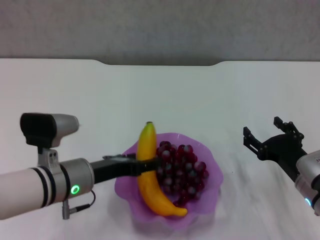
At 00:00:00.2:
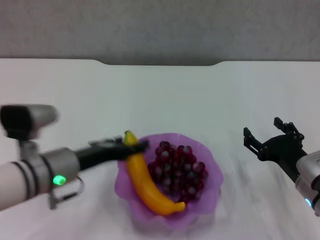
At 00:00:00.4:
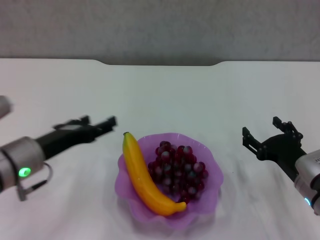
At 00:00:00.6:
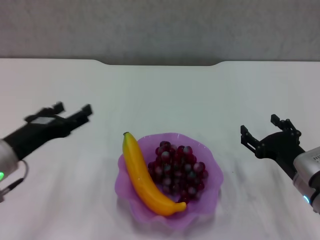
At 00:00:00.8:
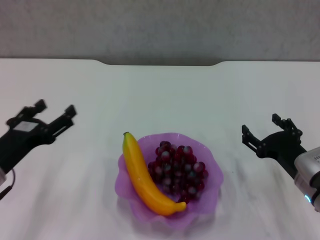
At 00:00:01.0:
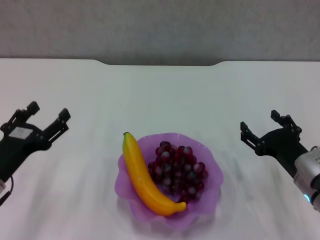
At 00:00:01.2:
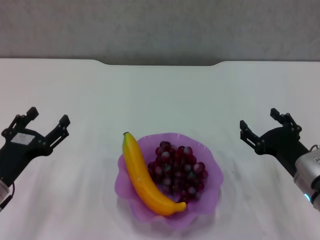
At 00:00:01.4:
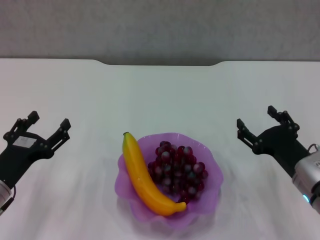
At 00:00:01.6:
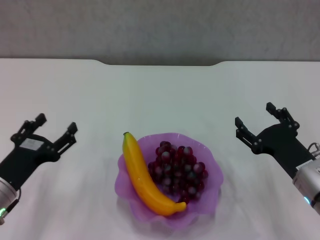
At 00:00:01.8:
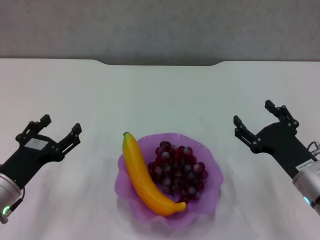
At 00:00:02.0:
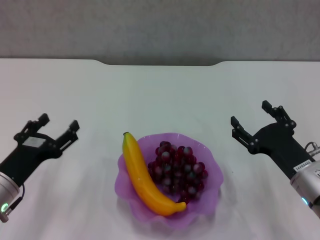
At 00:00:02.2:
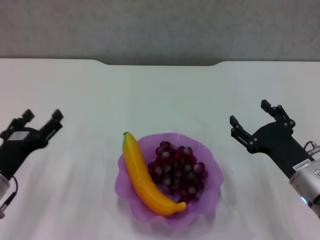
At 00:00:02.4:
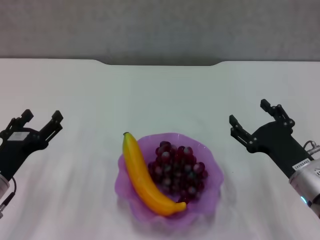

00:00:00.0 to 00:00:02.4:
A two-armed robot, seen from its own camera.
00:00:00.0 to 00:00:01.2: The left gripper moves to the left, roughly 10 cm, and opens its fingers.
00:00:01.2 to 00:00:02.4: The grippers make only small movements.

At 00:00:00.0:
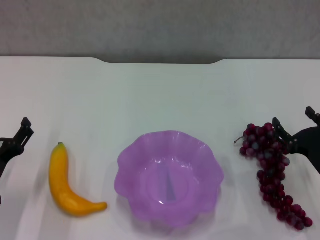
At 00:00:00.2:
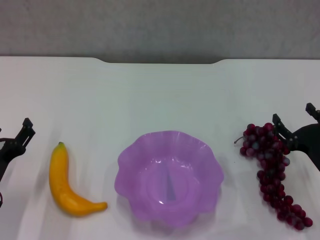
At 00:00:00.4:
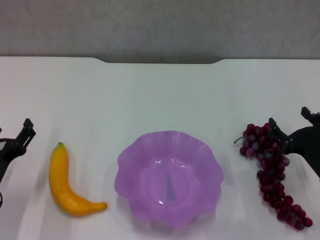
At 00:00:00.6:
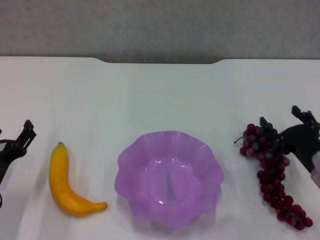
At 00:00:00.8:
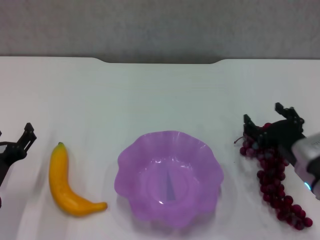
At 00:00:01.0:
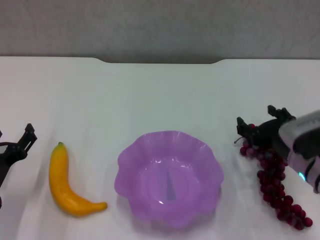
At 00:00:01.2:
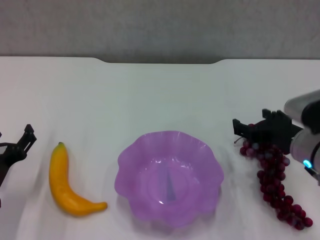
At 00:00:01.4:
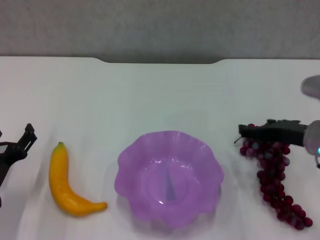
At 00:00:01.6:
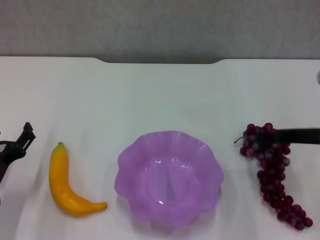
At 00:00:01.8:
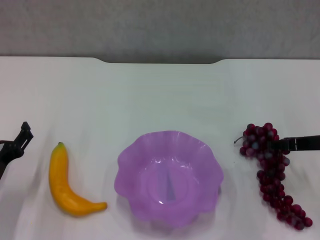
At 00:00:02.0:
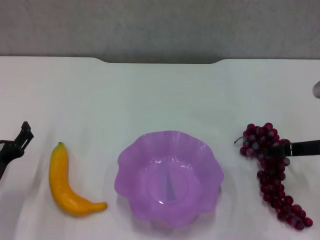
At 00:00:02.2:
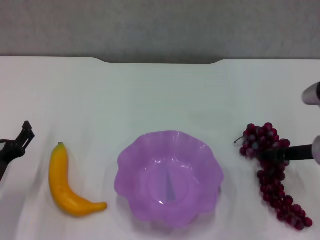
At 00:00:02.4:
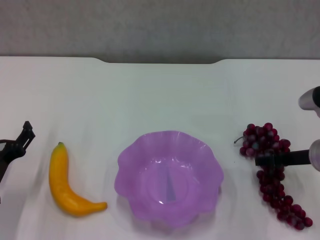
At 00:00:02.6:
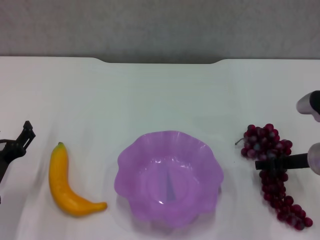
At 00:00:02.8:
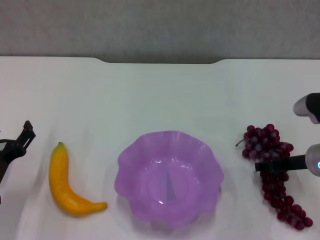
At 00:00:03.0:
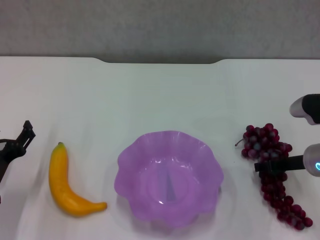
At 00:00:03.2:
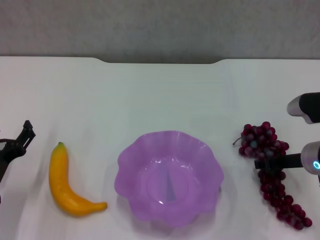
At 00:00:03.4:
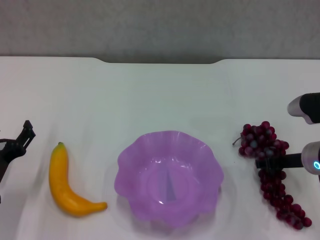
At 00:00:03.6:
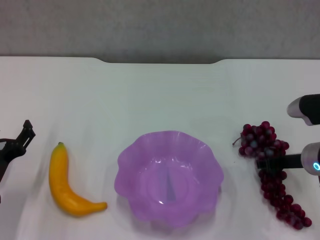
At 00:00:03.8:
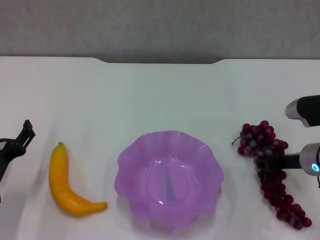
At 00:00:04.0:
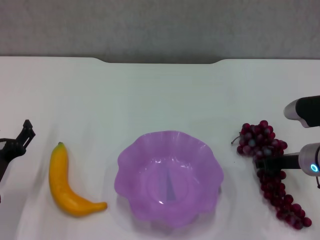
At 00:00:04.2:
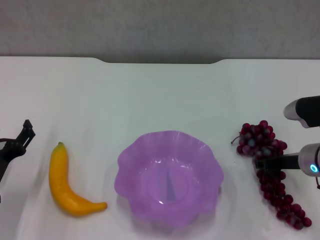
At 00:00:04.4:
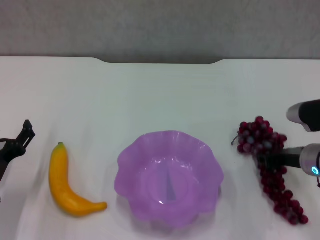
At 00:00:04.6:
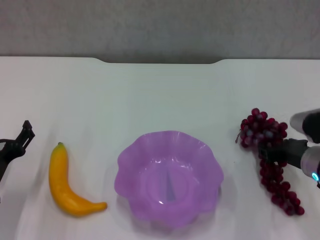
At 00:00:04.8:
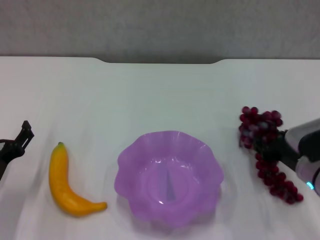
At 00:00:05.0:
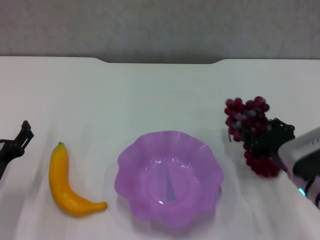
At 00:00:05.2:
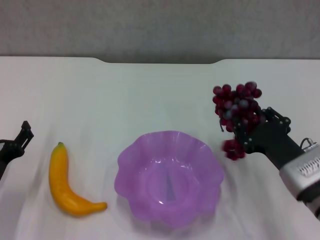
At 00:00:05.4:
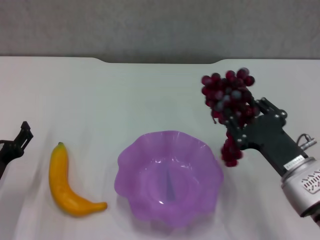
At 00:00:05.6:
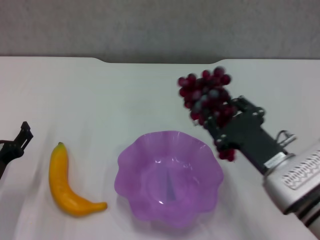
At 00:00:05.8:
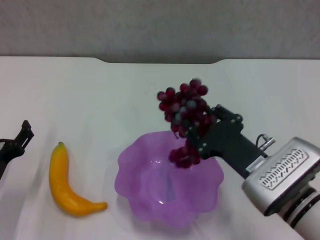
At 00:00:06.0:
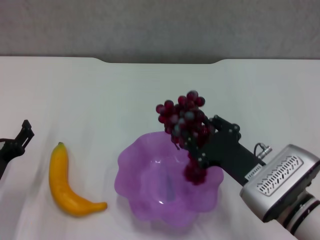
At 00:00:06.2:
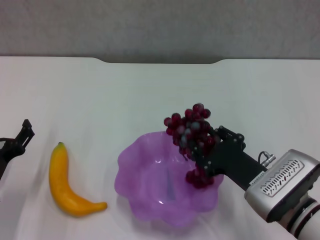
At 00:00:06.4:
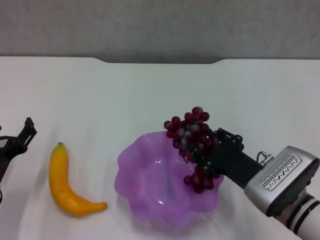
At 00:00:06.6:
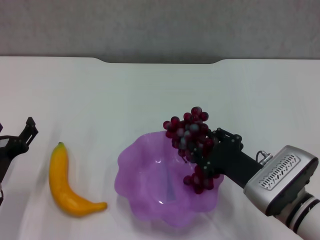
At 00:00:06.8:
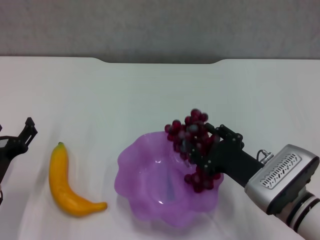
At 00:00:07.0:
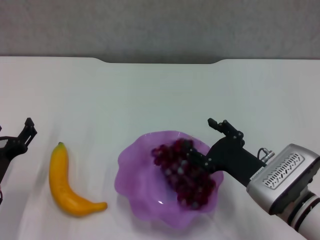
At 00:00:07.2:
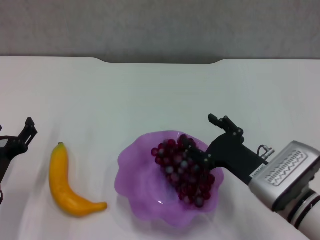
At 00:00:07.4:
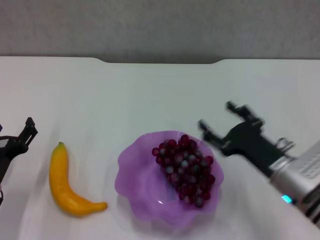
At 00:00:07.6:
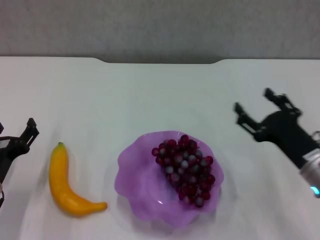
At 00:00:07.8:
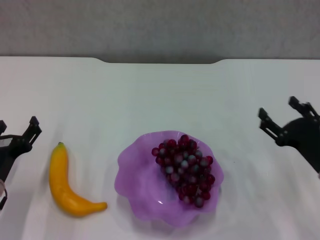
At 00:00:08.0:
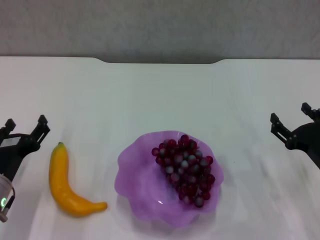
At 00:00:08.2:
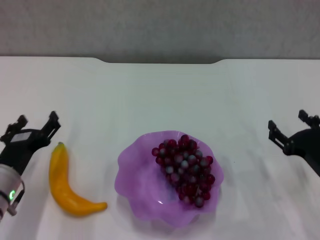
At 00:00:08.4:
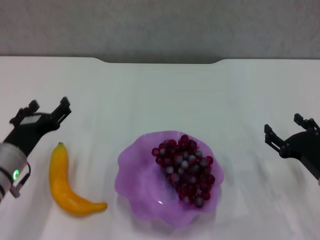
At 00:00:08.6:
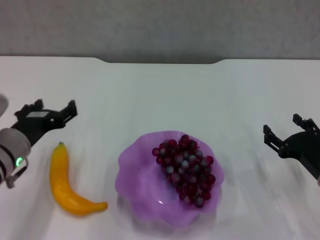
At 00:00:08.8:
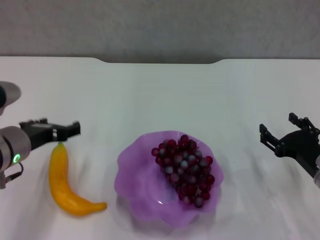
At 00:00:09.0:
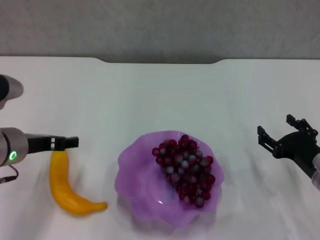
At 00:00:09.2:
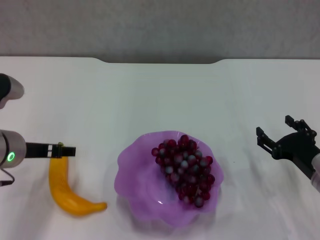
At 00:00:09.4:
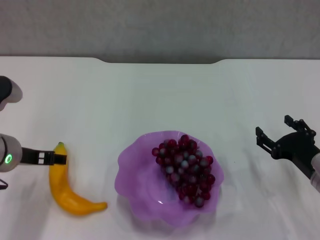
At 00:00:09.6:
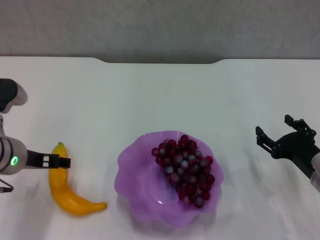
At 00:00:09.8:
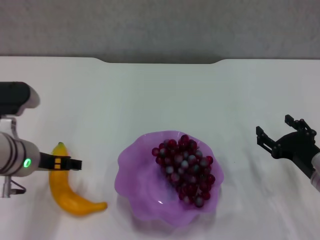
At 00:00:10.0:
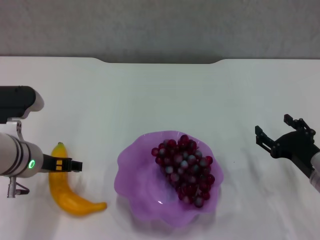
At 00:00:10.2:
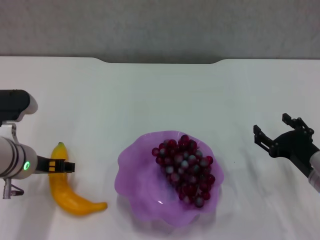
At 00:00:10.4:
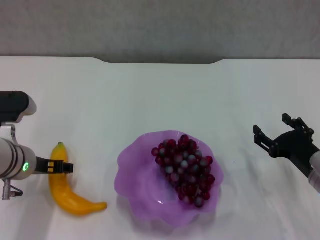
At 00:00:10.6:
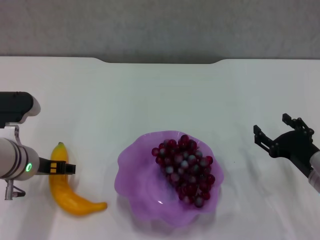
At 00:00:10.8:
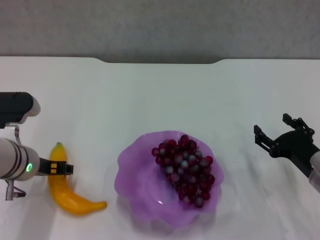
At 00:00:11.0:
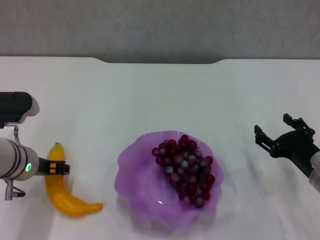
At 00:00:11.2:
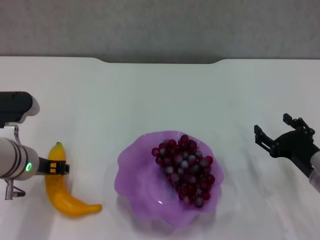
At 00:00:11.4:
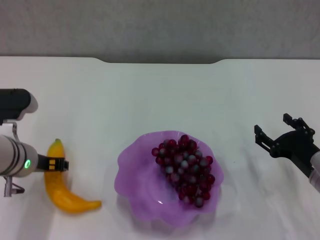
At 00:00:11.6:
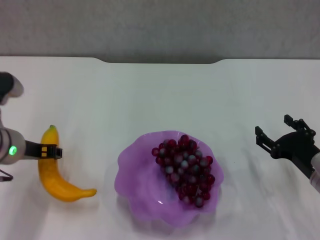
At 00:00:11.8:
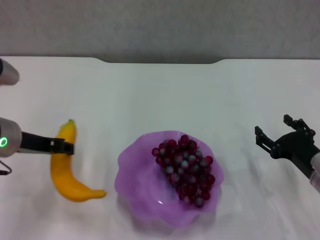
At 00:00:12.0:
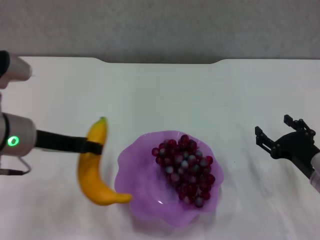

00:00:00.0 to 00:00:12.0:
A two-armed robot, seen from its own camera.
Step, 00:00:00.0 to 00:00:03.4: Grasp the grape with right gripper.
Step, 00:00:03.6 to 00:00:07.2: Place the grape in the purple plate with right gripper.
Step, 00:00:07.6 to 00:00:10.8: Grasp the banana with left gripper.
00:00:00.0 to 00:00:01.6: The right gripper heads upward and forward, covering about 10 cm.
00:00:01.6 to 00:00:03.0: The right gripper moves downward, about 5 cm.
00:00:03.0 to 00:00:04.4: The right gripper closes its fingers.
00:00:04.4 to 00:00:06.0: The right gripper is displaced to the left and backward by about 15 cm.
00:00:06.0 to 00:00:07.6: The right gripper shifts roughly 10 cm to the right, and opens its fingers.
00:00:07.6 to 00:00:09.0: The left gripper travels upward and forward by roughly 10 cm.
00:00:09.0 to 00:00:10.4: The grippers move only a little.
00:00:10.4 to 00:00:12.0: The left gripper heads upward, covering approximately 5 cm, and closes.

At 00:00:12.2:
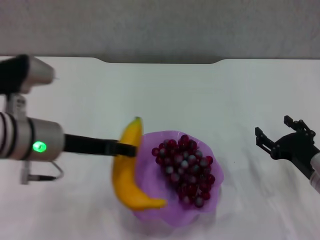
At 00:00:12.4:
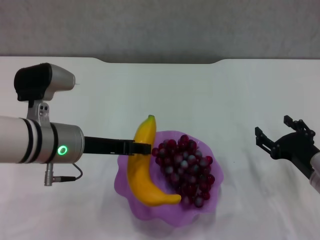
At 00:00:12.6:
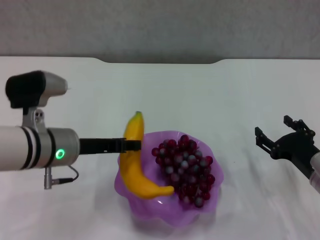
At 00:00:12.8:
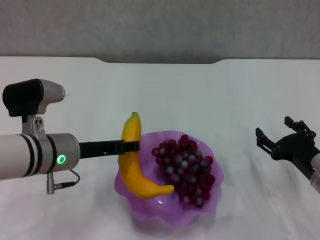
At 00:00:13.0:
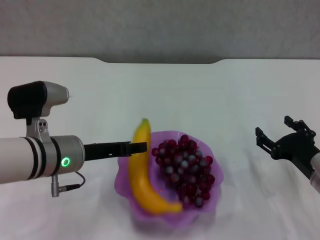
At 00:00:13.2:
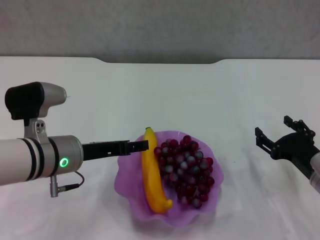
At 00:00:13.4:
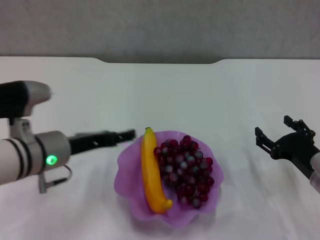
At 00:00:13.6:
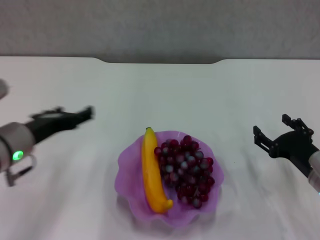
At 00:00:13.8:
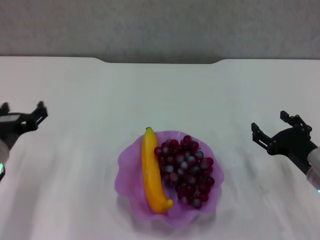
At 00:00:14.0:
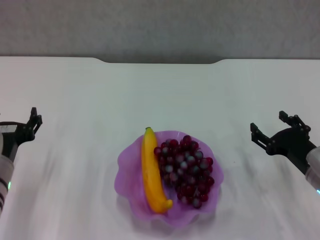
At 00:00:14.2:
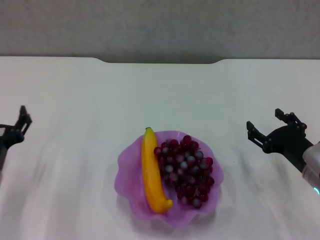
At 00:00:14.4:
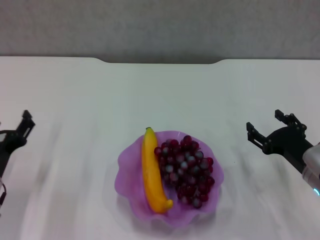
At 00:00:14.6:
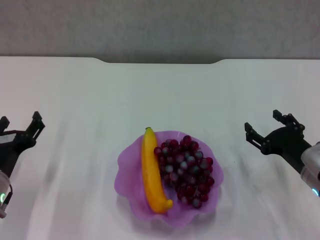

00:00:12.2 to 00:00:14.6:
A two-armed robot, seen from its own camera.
Step, 00:00:12.2 to 00:00:13.4: Place the banana in the purple plate with left gripper.
00:00:12.2 to 00:00:13.4: The left gripper opens up.
00:00:13.4 to 00:00:14.6: The left gripper heads downward and to the left, covering roughly 10 cm.
